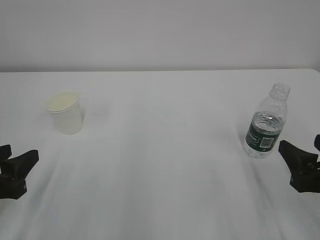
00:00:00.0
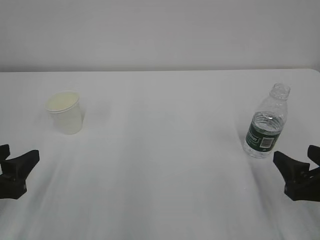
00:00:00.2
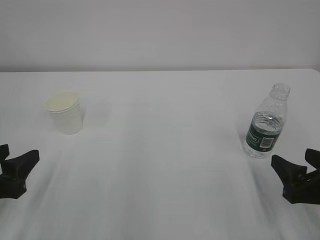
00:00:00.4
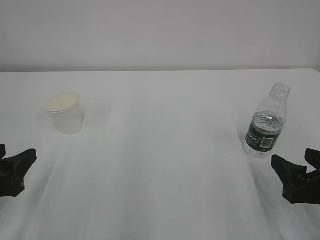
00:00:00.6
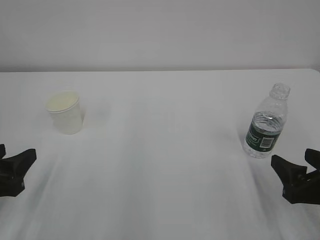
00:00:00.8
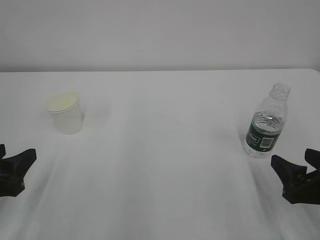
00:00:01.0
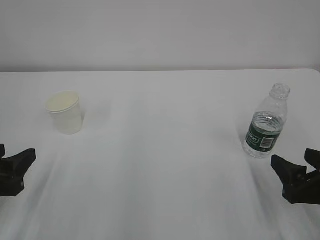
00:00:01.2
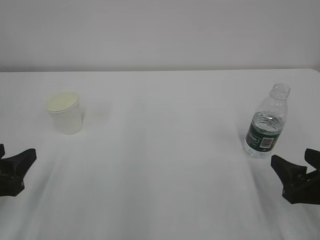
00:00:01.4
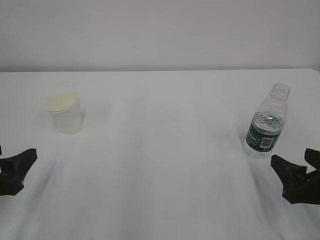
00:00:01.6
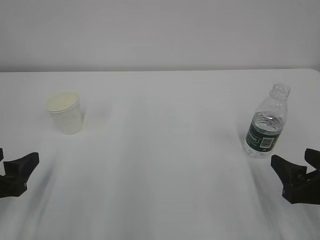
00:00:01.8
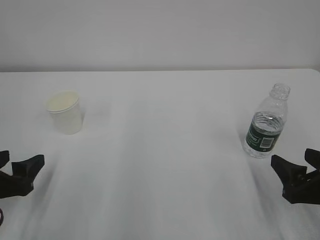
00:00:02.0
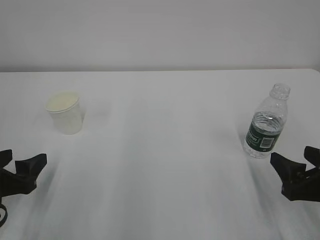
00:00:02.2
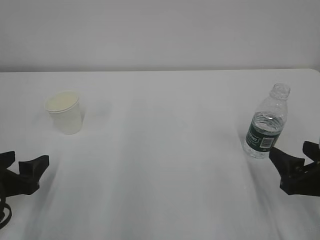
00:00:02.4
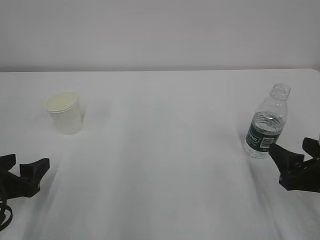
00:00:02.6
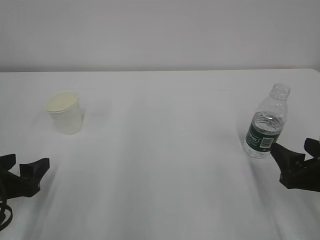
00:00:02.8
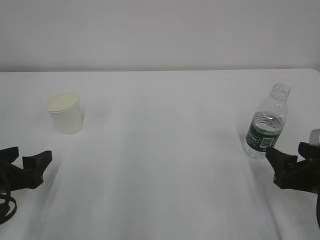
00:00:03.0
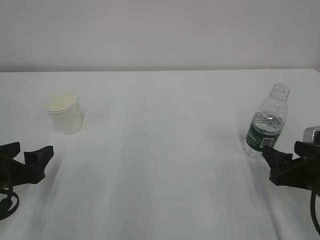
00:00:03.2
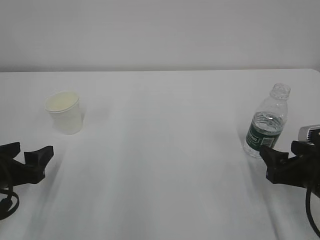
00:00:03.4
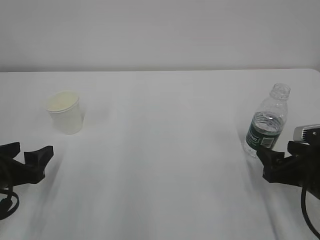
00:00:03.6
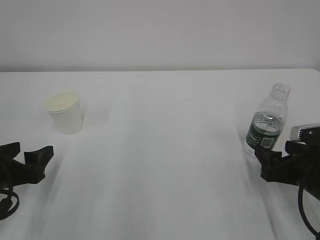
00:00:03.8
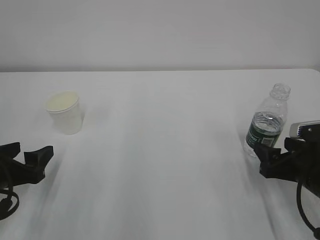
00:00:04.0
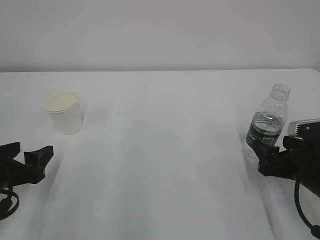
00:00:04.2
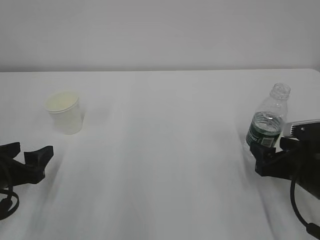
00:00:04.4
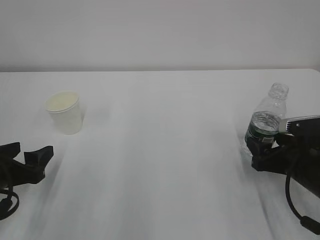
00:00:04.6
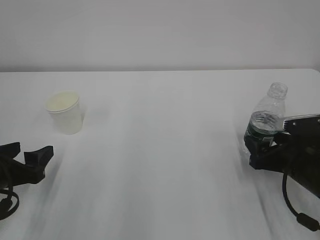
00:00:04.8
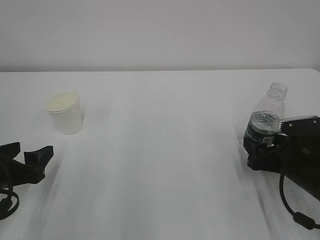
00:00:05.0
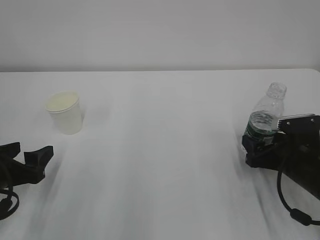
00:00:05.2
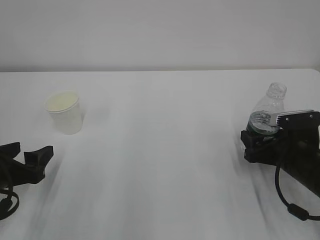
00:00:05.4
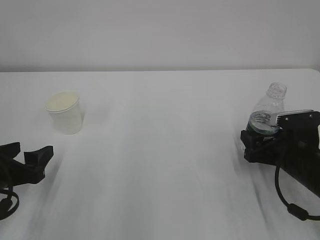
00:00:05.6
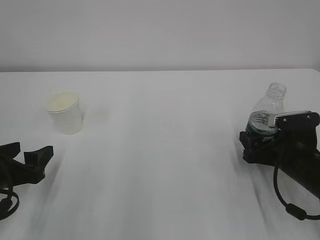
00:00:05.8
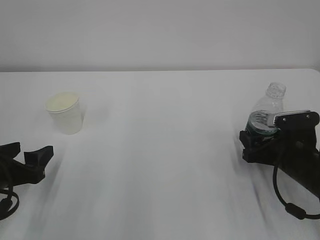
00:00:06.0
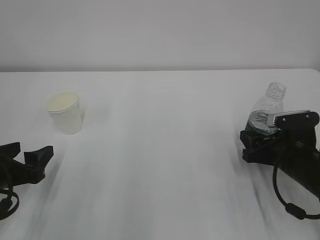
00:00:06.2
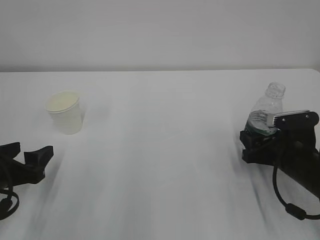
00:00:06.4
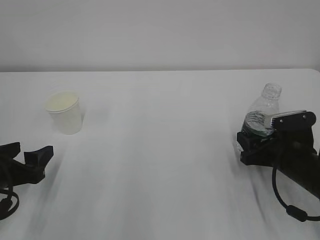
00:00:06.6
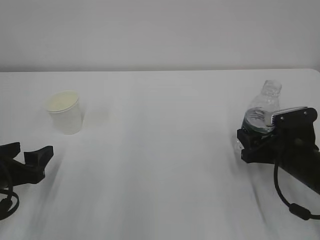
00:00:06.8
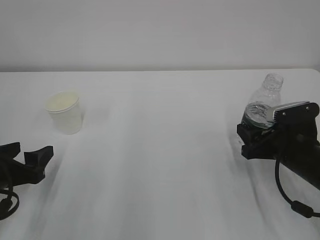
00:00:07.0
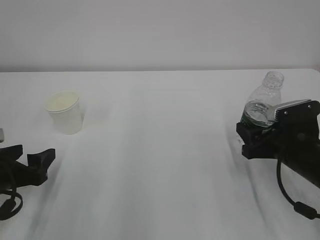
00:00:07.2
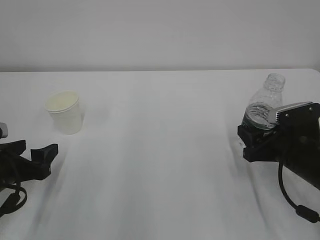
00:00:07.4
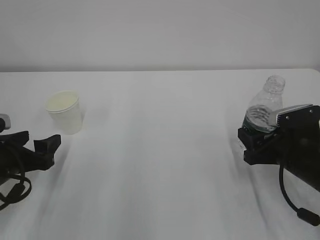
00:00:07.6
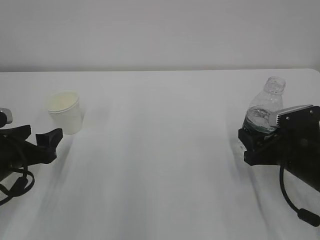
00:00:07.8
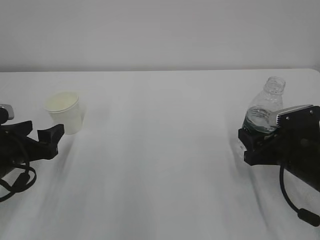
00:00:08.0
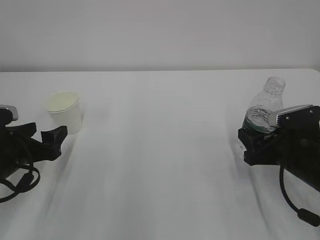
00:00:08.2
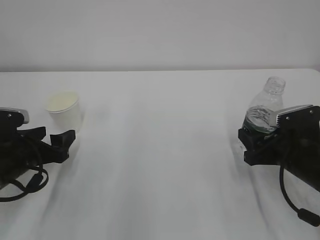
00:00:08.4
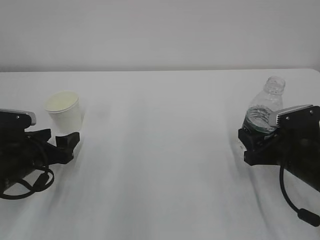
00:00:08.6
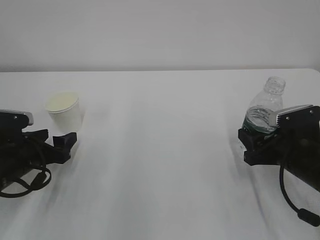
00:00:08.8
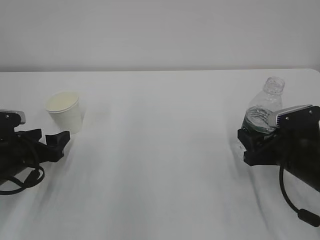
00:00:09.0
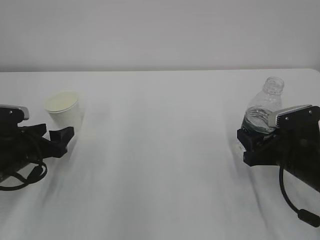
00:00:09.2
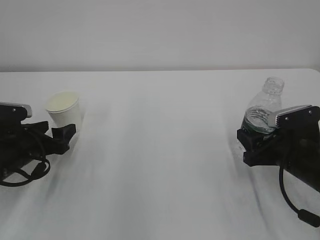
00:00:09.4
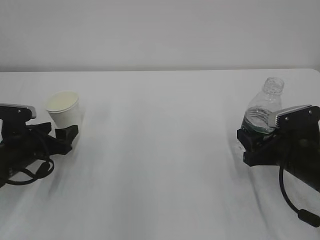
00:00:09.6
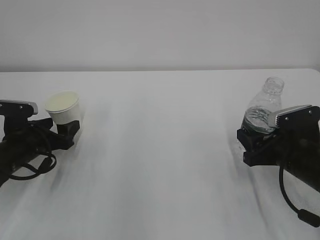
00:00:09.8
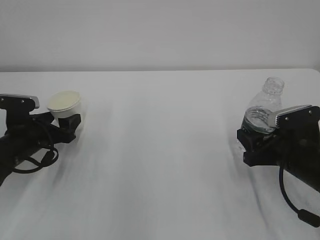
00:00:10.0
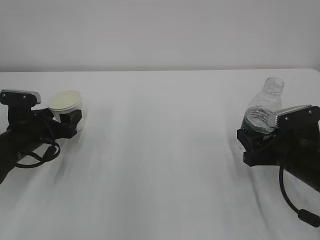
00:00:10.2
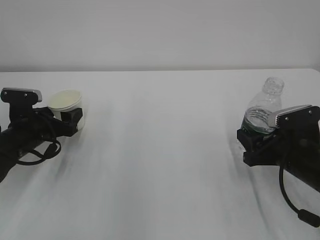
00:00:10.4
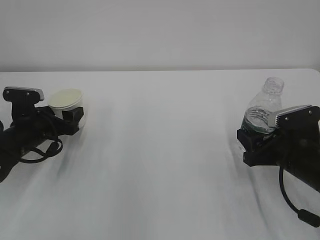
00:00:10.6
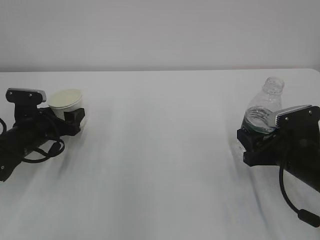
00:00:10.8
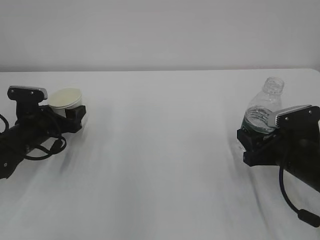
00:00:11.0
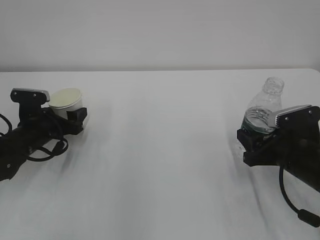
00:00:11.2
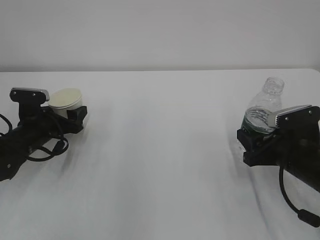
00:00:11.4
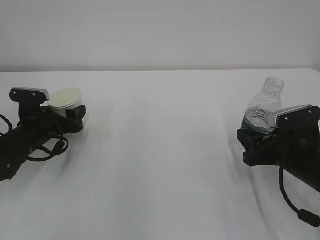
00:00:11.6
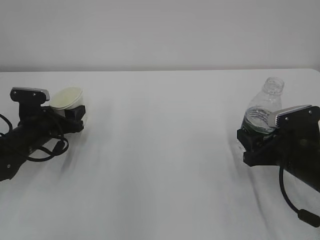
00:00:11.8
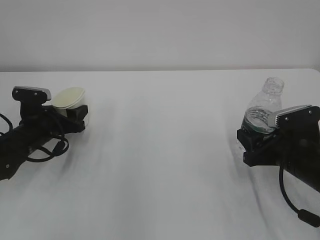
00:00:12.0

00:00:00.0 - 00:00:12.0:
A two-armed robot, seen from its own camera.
00:00:00.0 - 00:00:01.6: The left gripper opens its fingers.
00:00:01.6 - 00:00:03.0: The grippers move only a little.
00:00:03.0 - 00:00:04.4: The right gripper moves some 5 cm.
00:00:04.4 - 00:00:06.0: The grippers stay close to where they were, moving slightly.
00:00:06.0 - 00:00:07.6: The right gripper closes.
00:00:07.6 - 00:00:09.0: The left gripper shifts by roughly 5 cm.
00:00:09.0 - 00:00:10.4: The left gripper is displaced forward by about 5 cm.
00:00:10.4 - 00:00:12.0: The left gripper closes.

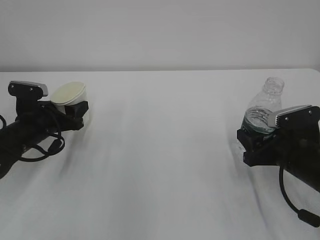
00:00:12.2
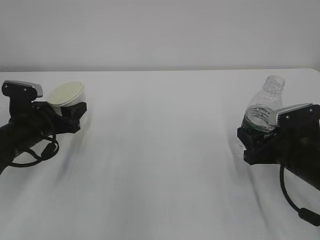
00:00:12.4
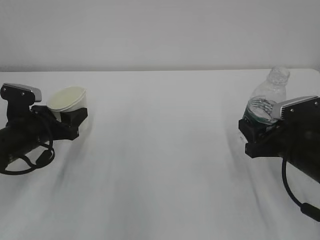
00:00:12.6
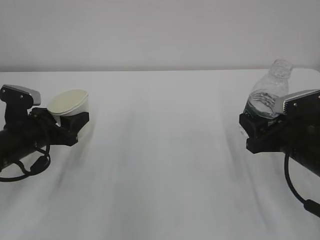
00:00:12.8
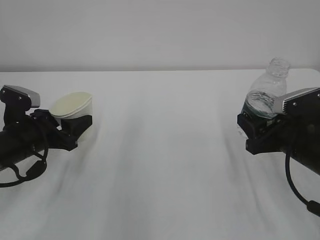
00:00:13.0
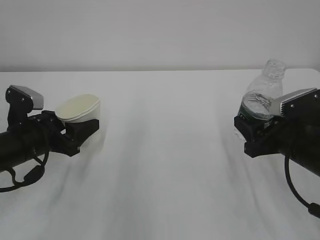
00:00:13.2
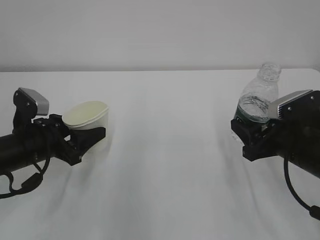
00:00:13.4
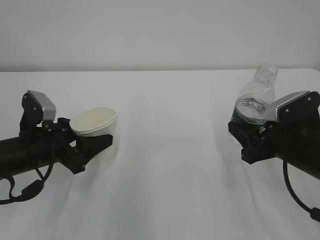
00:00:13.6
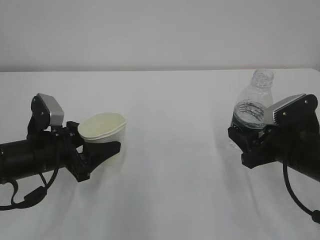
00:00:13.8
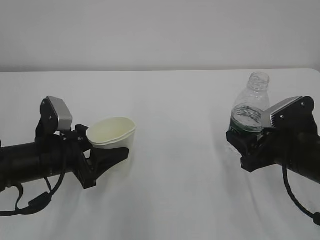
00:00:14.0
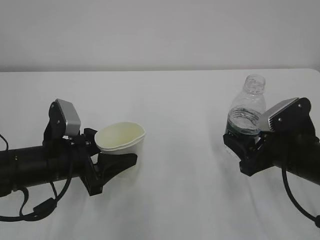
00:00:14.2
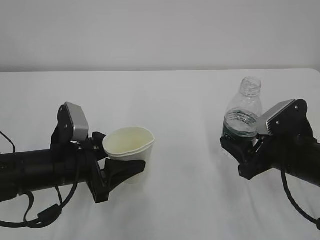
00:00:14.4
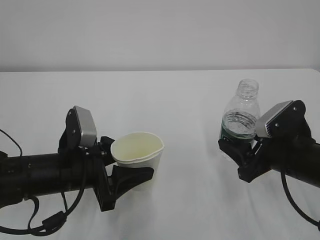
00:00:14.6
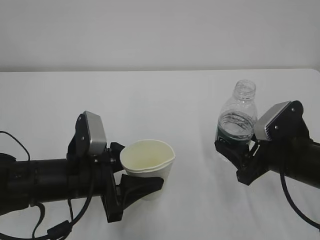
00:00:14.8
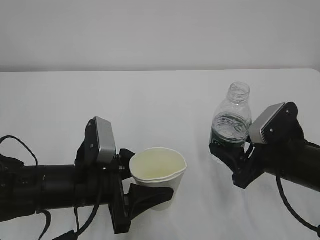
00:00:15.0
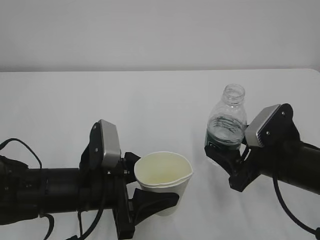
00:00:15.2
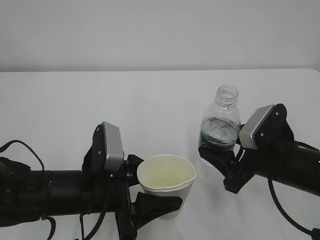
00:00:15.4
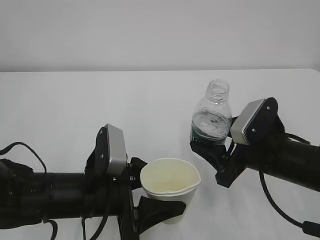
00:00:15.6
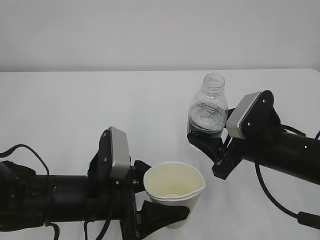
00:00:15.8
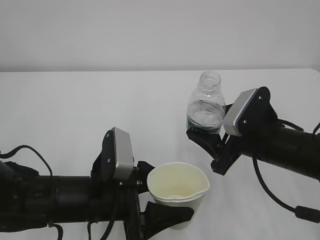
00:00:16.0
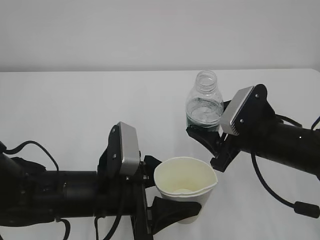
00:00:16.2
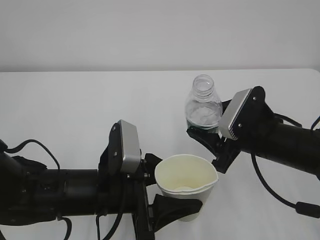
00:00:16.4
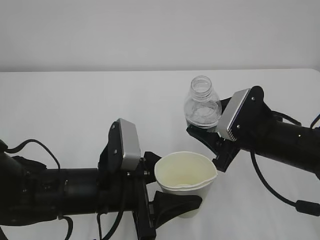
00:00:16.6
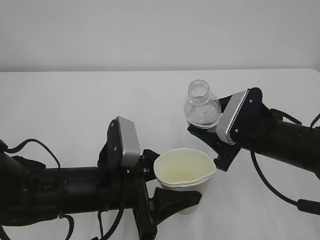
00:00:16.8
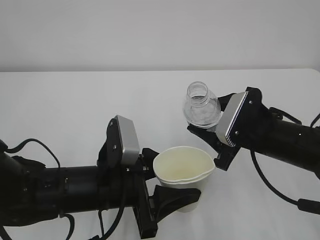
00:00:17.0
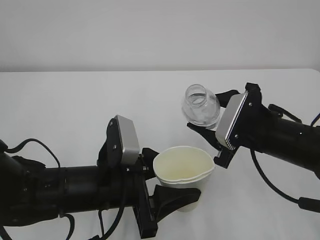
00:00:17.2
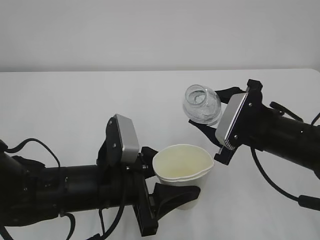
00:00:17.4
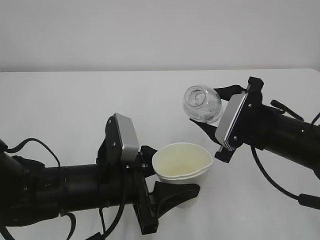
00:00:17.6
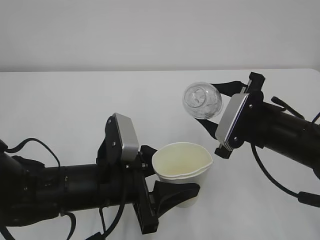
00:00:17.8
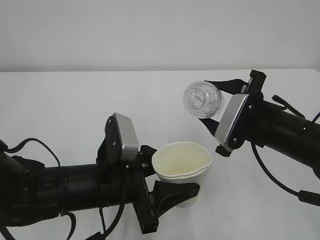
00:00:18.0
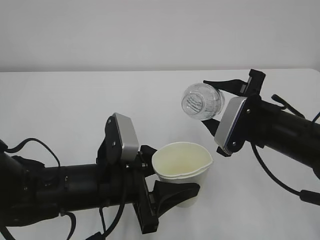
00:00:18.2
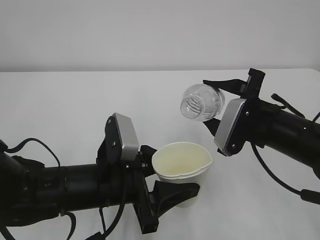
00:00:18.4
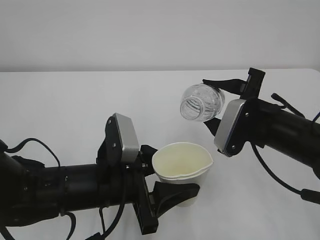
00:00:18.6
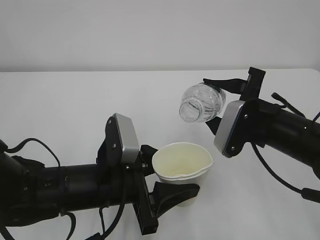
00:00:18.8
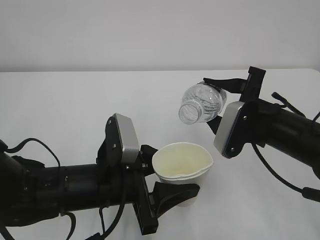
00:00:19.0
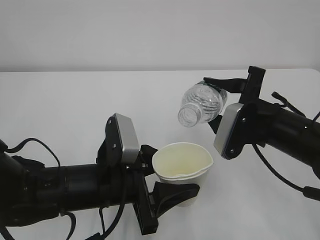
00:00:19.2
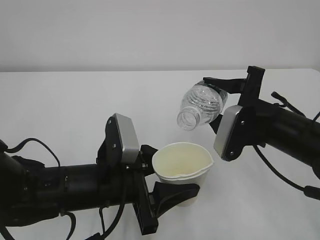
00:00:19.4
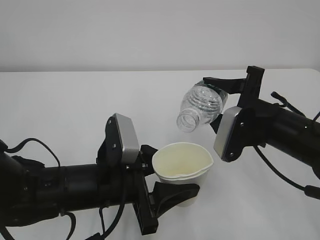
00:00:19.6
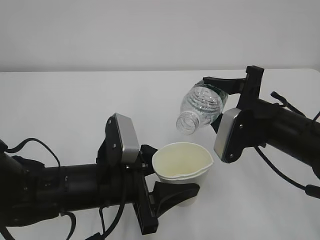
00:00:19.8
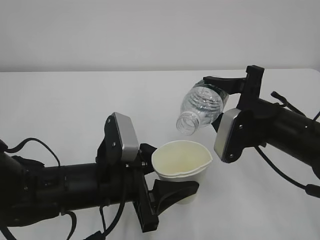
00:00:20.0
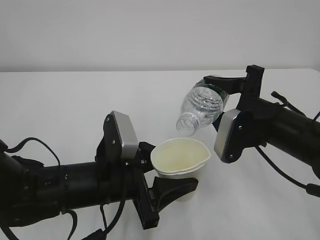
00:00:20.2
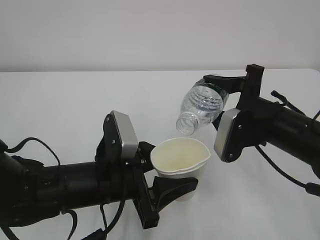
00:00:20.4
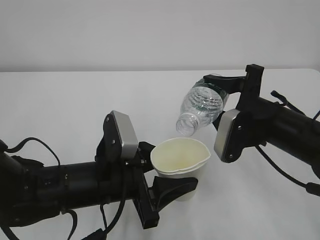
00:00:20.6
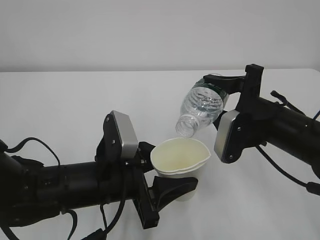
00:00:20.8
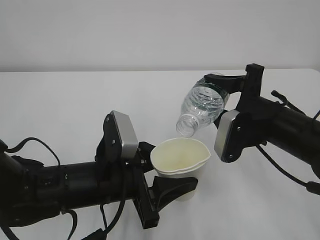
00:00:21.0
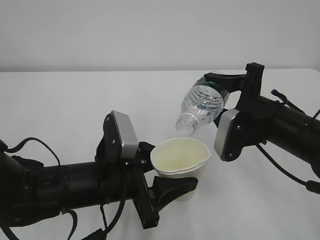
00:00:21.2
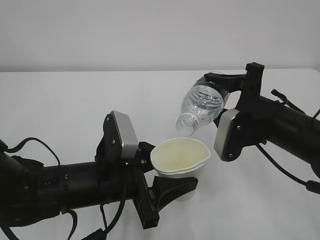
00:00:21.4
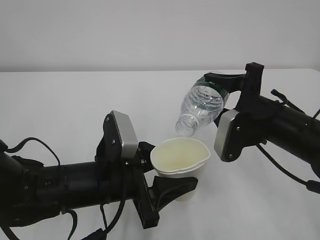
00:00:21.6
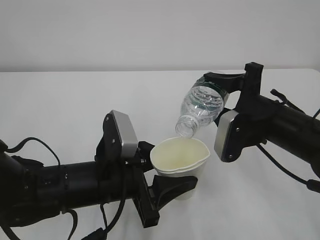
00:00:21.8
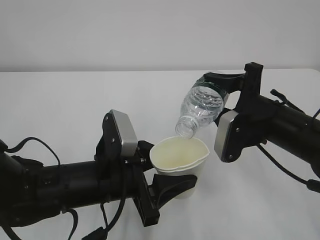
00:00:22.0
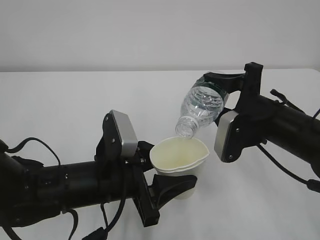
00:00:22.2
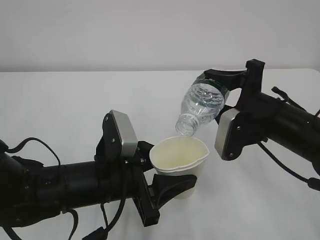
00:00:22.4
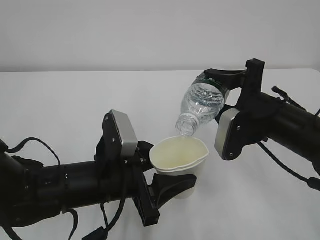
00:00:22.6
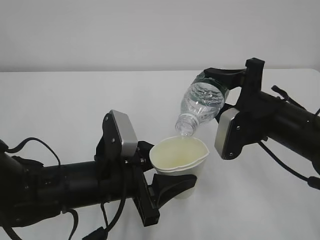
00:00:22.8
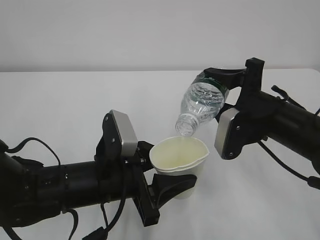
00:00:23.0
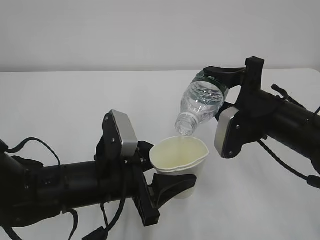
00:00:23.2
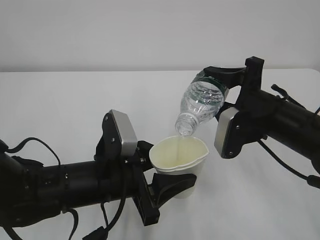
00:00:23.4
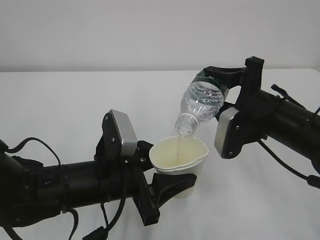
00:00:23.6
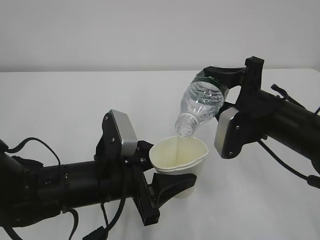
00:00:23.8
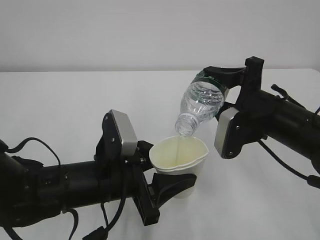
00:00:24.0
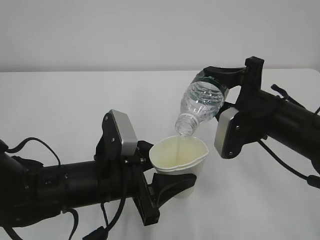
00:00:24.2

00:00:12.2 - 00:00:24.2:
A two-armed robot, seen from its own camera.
00:00:12.2 - 00:00:13.8: The left gripper moves backward, roughly 10 cm.
00:00:13.8 - 00:00:15.2: The left gripper shifts approximately 10 cm to the right and backward.
00:00:18.2 - 00:00:19.8: The grippers move only a little.
00:00:19.8 - 00:00:21.2: The grippers make only small movements.
00:00:21.2 - 00:00:22.6: Both grippers stay about where they are.
00:00:22.6 - 00:00:24.2: The two grippers keep their place.
